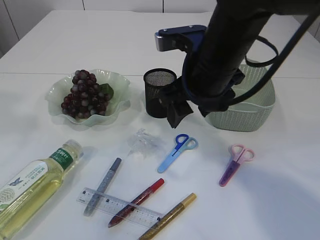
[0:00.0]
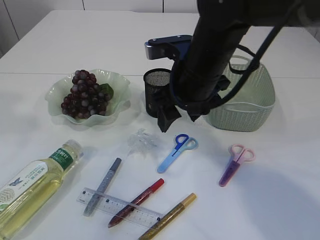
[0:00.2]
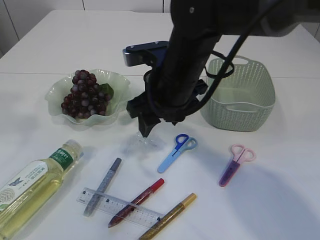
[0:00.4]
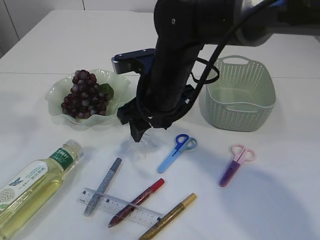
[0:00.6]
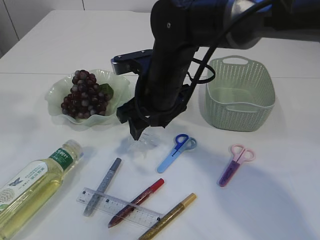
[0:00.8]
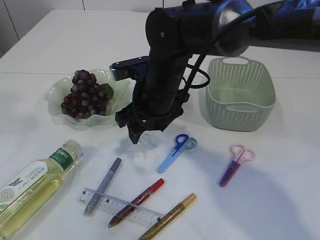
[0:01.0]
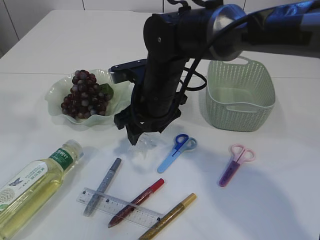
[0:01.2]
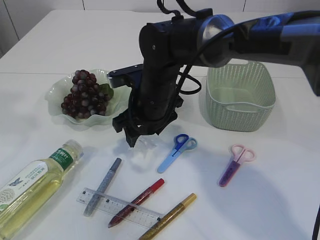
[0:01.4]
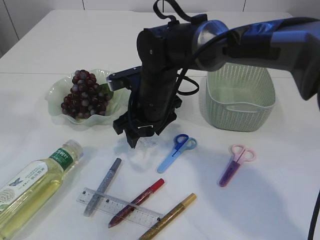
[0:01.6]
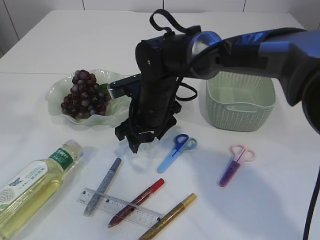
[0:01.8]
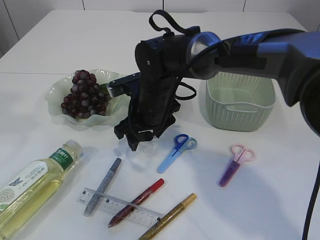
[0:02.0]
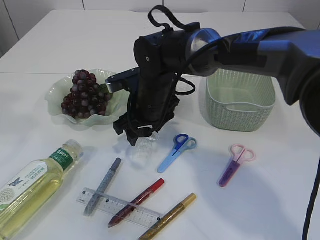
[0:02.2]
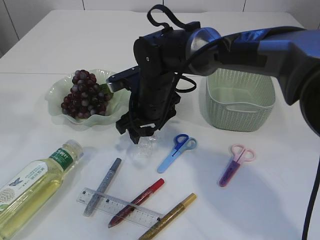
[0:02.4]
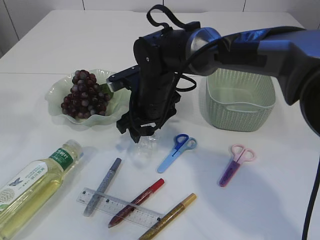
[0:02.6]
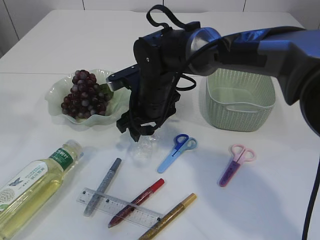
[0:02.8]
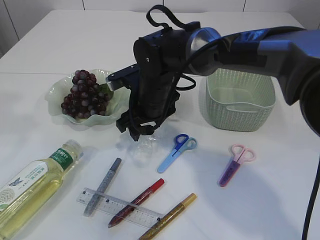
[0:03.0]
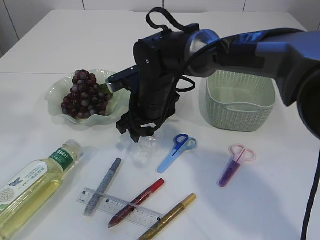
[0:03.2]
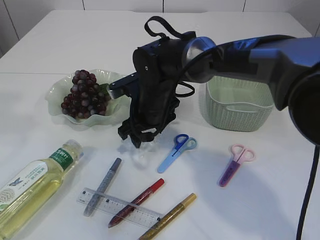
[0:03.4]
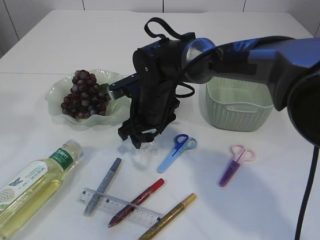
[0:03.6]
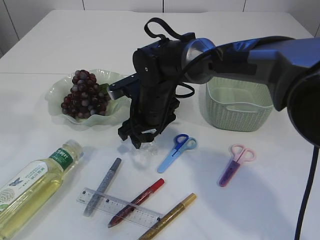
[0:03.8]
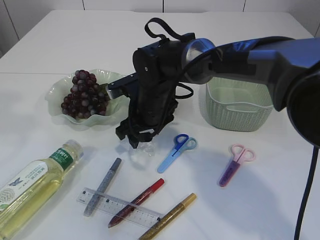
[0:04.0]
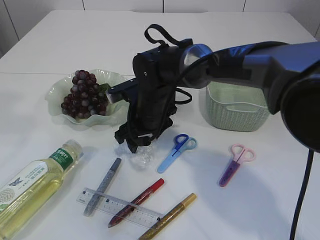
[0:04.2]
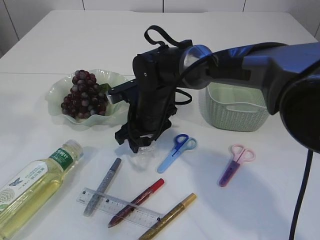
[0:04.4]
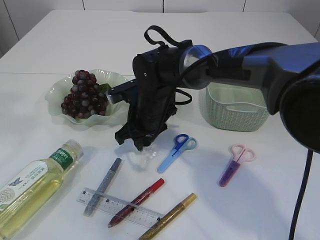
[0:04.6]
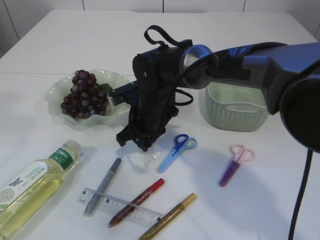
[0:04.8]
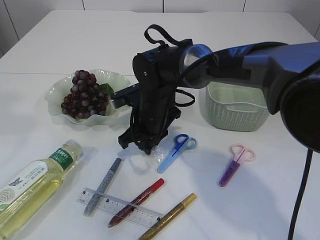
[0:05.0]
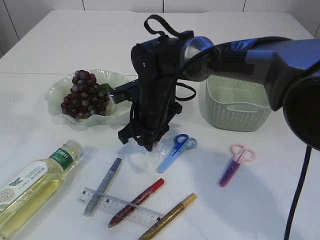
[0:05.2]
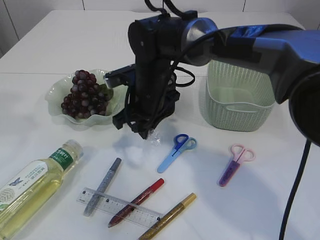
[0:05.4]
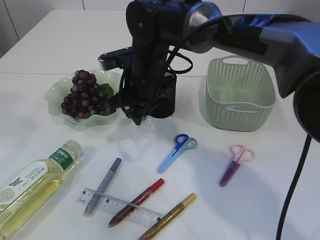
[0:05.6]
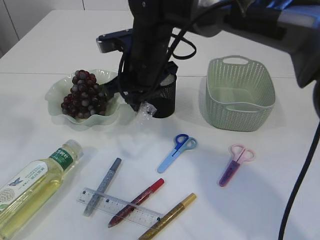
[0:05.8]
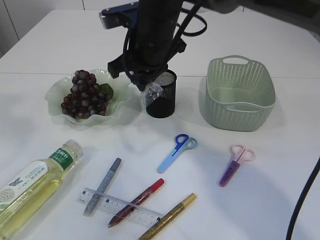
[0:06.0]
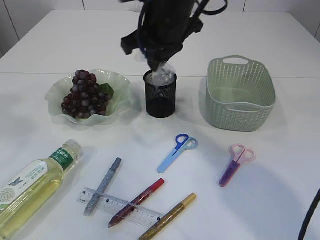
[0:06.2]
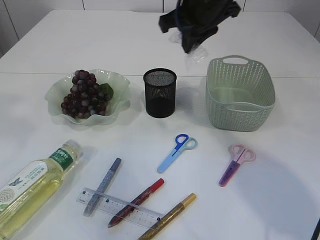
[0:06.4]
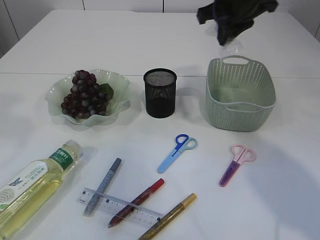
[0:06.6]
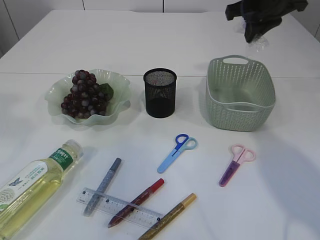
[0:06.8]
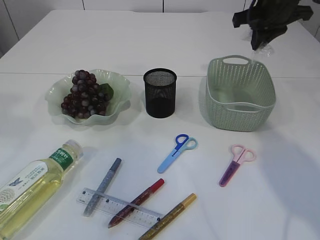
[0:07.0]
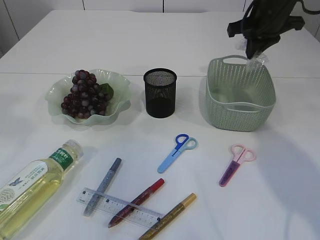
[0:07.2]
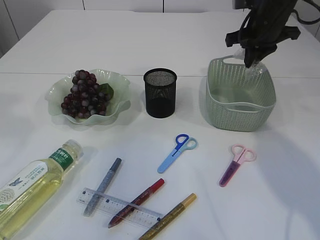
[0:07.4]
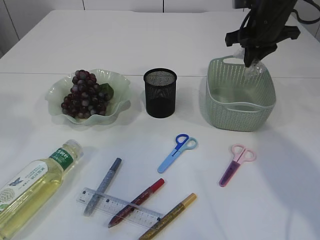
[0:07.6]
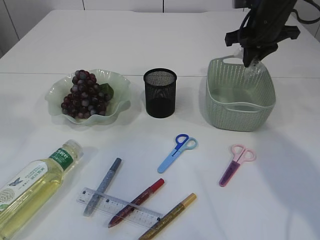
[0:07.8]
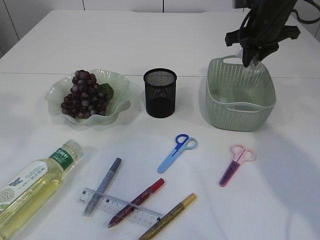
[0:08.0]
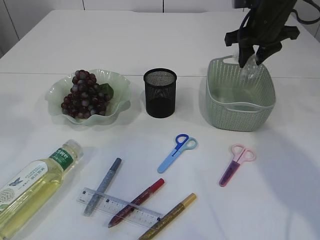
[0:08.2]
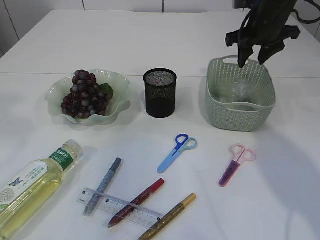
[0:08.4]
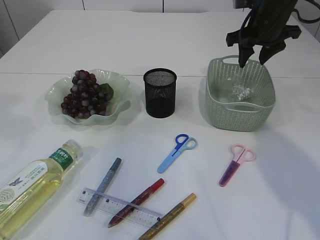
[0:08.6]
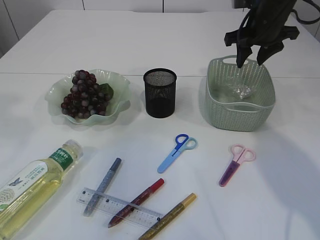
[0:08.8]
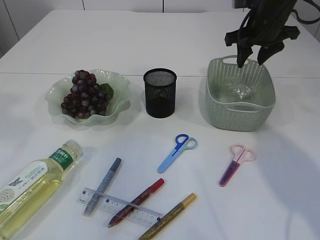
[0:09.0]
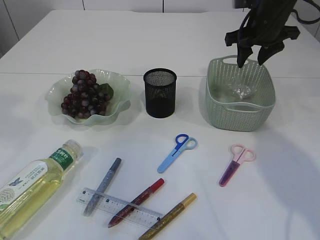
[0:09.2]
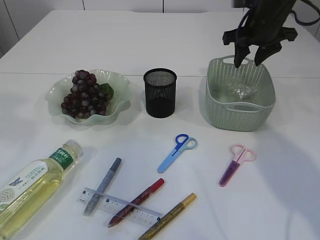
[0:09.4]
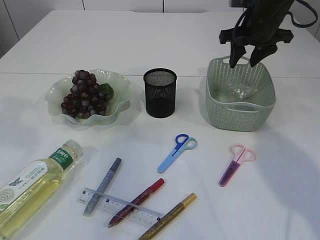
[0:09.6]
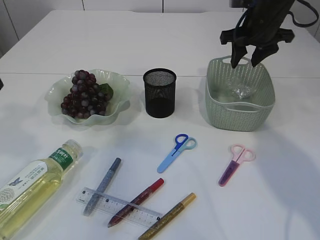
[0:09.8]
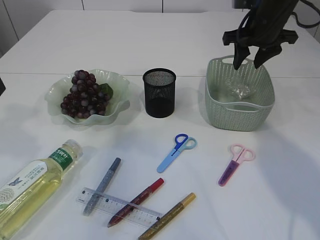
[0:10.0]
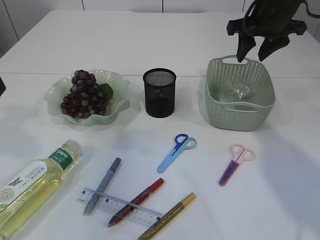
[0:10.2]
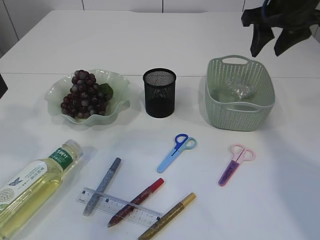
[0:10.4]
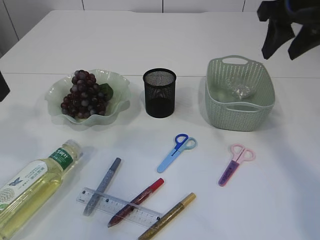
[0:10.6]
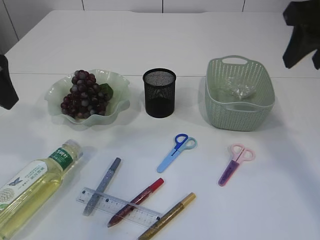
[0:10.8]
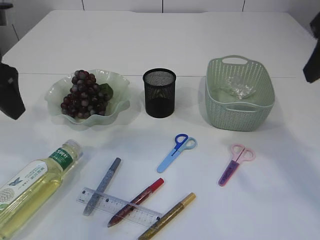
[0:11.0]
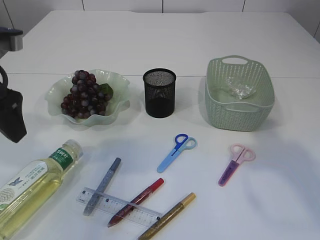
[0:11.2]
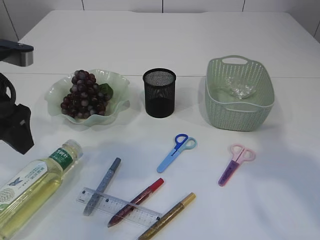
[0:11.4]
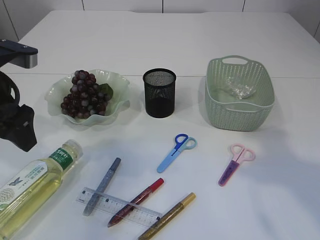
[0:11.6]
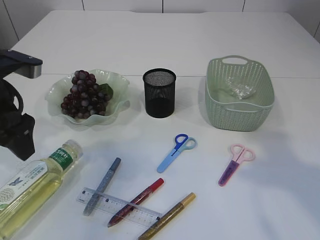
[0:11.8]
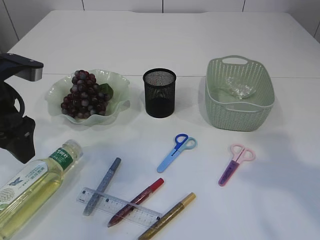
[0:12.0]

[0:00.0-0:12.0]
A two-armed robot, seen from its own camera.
Step, 0:00.0 to 0:05.6: Pick up the plastic.
Step, 0:05.8 to 0:09.6: Place the plastic in the basket.
0:00.0 to 0:01.6: The right gripper travels downward, to the left and forward by approximately 15 cm.
0:01.6 to 0:04.4: The grippers make only small movements.
0:04.4 to 0:06.0: The right gripper heads upward, covering some 15 cm, and closes.
0:06.0 to 0:07.6: The right gripper shifts about 25 cm to the right and forward.
0:07.6 to 0:09.0: The right gripper opens its fingers.
0:09.0 to 0:10.4: The right gripper goes about 10 cm backward and upward; the left gripper moves downward, some 5 cm.
0:10.4 to 0:12.0: The right gripper is displaced backward by roughly 25 cm, while the left gripper is displaced downward by about 10 cm.

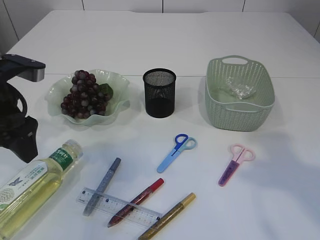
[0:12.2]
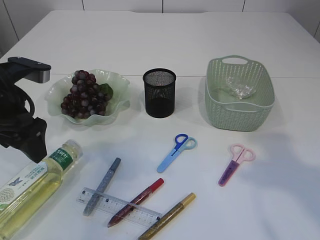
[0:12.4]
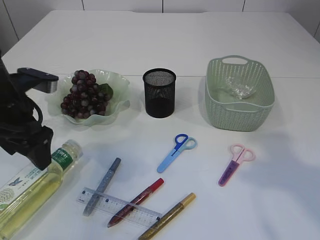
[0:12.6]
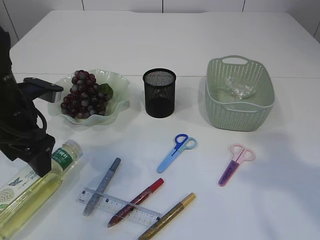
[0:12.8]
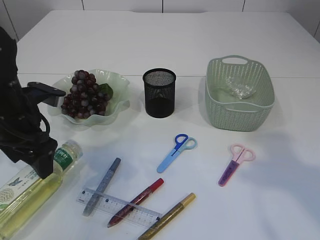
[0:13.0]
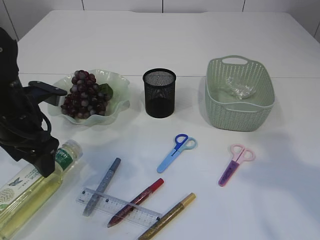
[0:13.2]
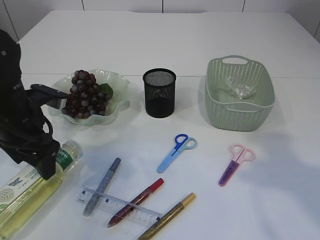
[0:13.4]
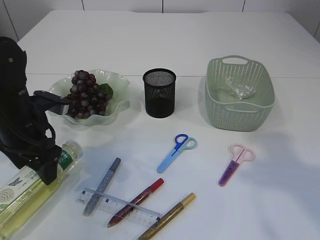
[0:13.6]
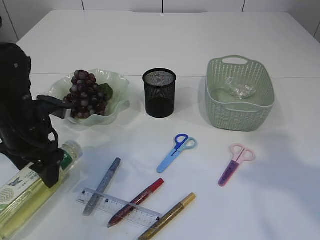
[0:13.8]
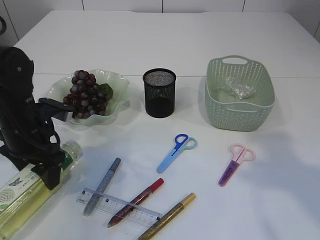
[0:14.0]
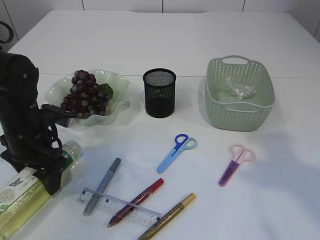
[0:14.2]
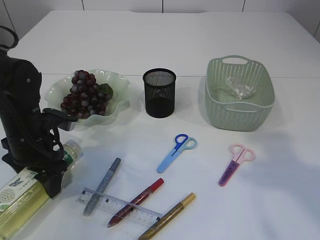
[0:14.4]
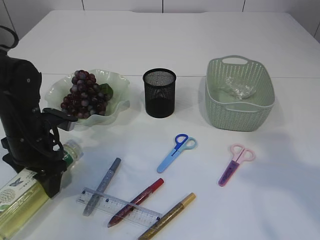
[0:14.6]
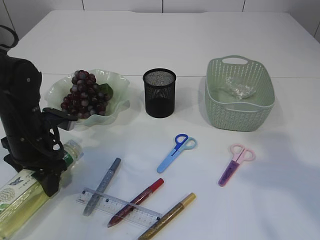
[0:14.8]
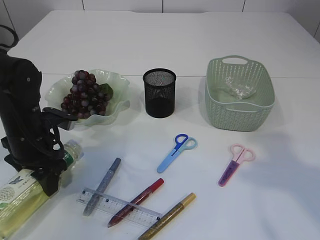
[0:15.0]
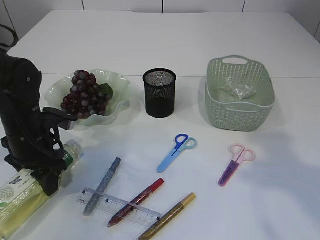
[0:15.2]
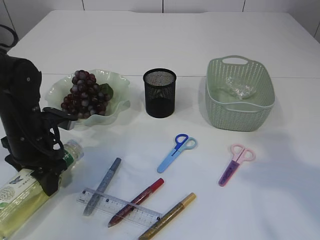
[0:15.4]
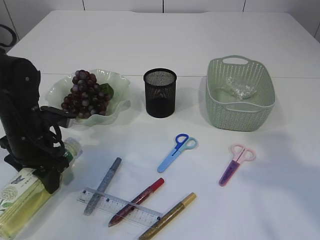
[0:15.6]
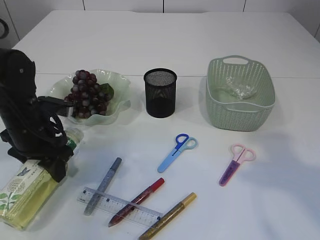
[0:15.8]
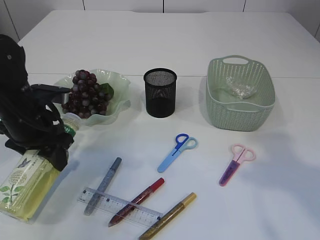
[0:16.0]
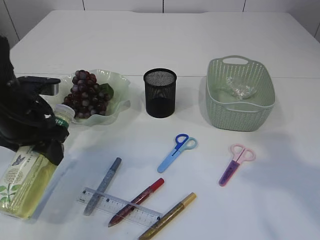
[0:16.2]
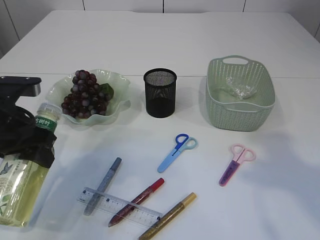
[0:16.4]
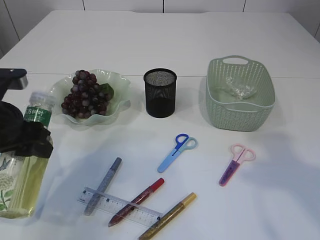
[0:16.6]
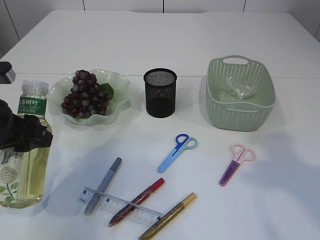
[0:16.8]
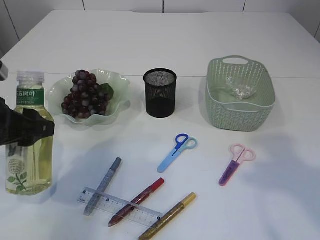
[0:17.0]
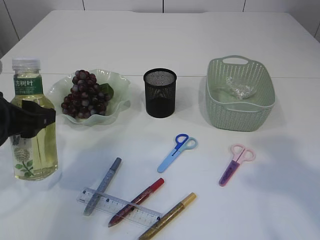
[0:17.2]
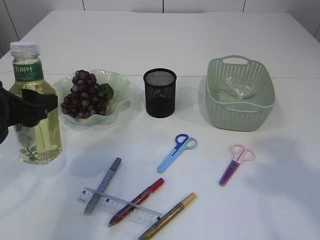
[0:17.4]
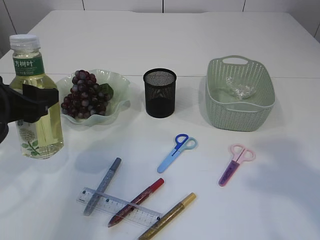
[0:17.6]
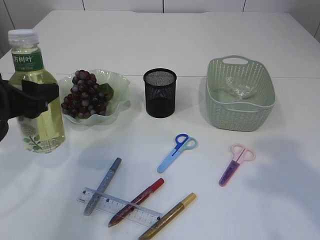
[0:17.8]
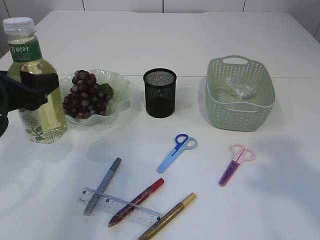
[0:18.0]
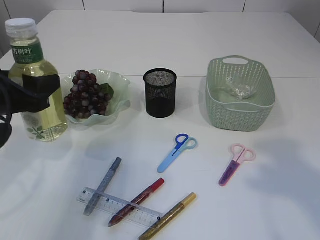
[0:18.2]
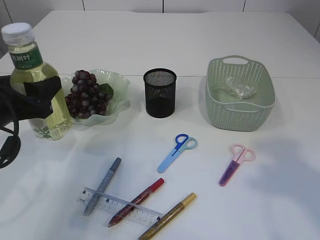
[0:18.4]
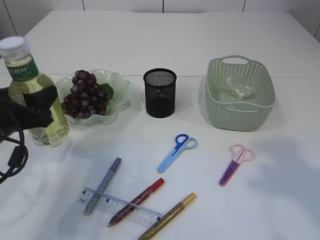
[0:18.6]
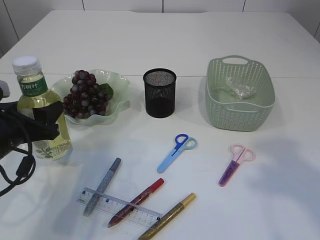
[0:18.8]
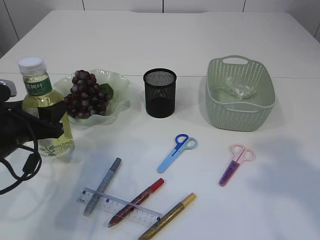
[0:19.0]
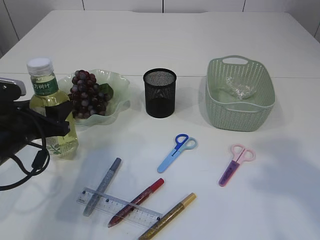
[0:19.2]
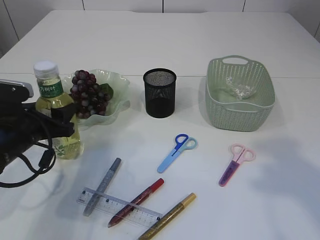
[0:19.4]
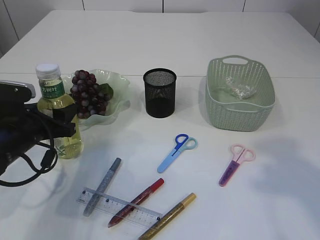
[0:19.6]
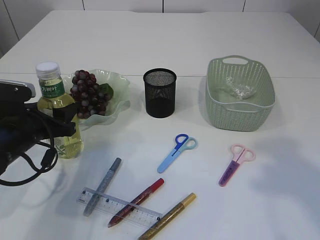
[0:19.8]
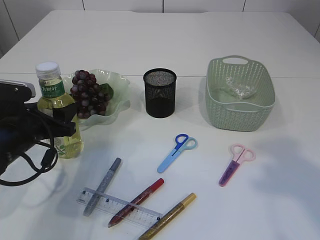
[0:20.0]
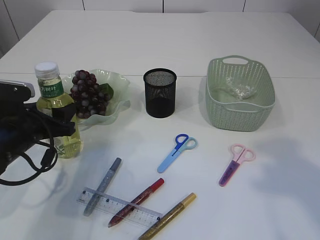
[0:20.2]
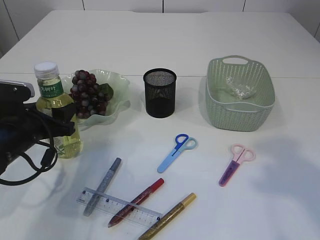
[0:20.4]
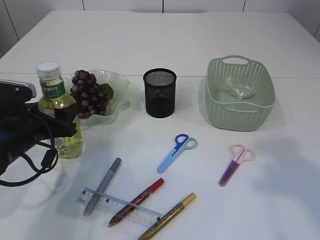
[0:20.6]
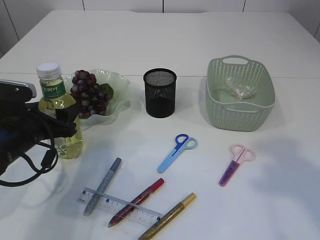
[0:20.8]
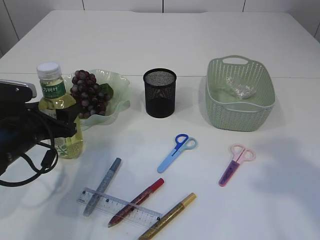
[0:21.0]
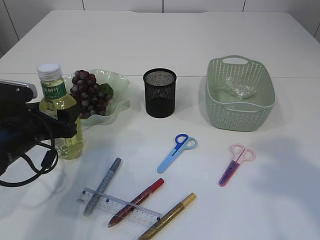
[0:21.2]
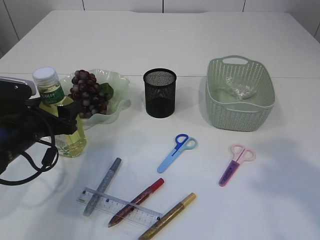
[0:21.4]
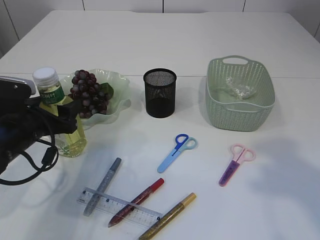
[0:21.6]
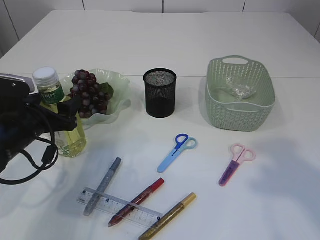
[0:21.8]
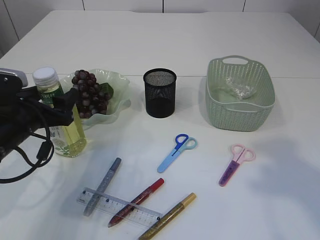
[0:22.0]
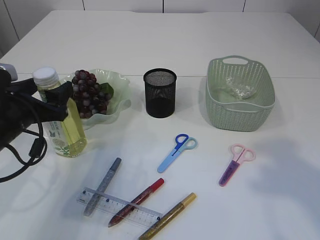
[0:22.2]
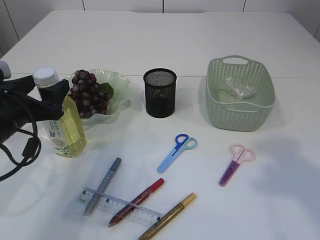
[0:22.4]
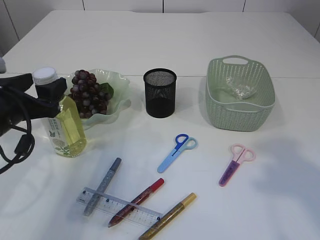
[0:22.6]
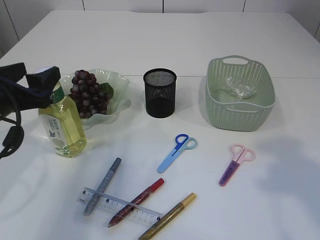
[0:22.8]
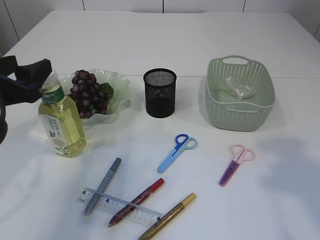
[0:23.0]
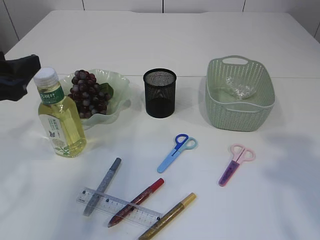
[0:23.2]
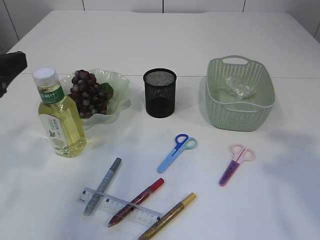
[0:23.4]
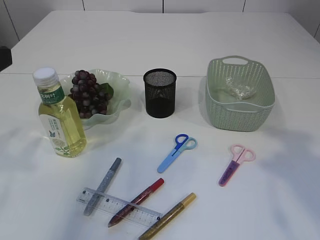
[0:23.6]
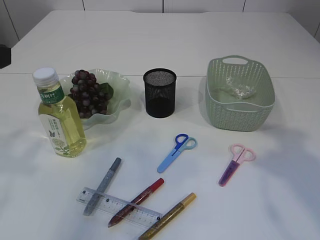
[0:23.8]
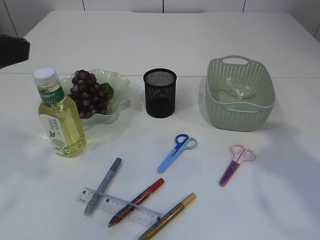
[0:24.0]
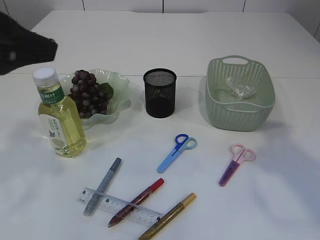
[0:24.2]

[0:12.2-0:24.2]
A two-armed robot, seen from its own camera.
Step, 0:12.2 to 0:16.8: Pick up the bottle with the left arm.
Step, 0:17.0 to 0:23.0: Place the bottle.
0:12.2 to 0:13.8: The left gripper goes about 10 cm downward.
0:13.8 to 0:15.2: The grippers move only a little.
0:15.2 to 0:16.6: The left gripper heads upward and backward, covering roughly 10 cm.
0:18.2 to 0:19.8: The left gripper shifts roughly 10 cm downward.
0:19.8 to 0:21.2: Neither gripper changes place.
0:21.2 to 0:22.6: The left gripper travels upward by approximately 5 cm.
0:22.6 to 0:24.2: The right gripper is displaced forward by roughly 5 cm. Meanwhile the left gripper is displaced upward and backward by about 20 cm.
